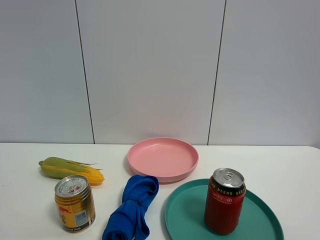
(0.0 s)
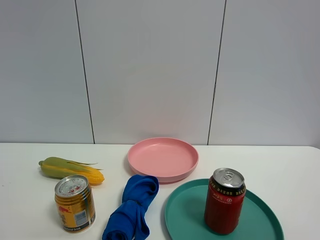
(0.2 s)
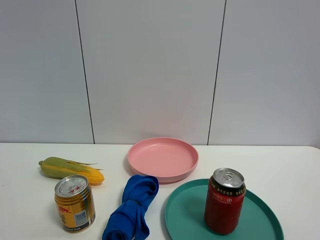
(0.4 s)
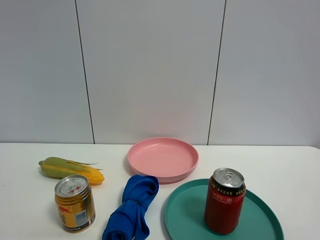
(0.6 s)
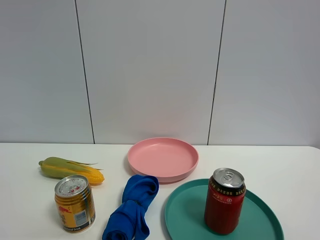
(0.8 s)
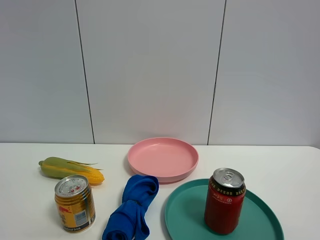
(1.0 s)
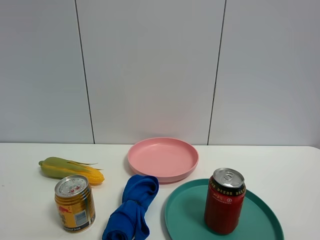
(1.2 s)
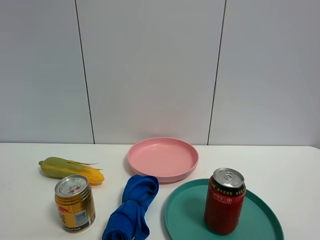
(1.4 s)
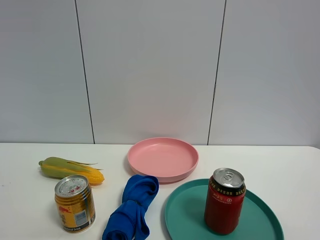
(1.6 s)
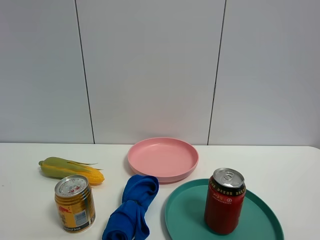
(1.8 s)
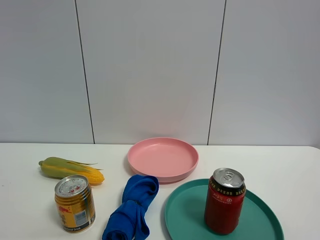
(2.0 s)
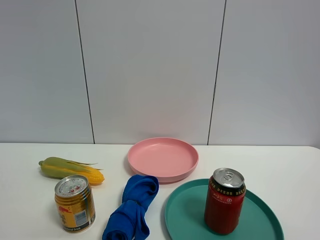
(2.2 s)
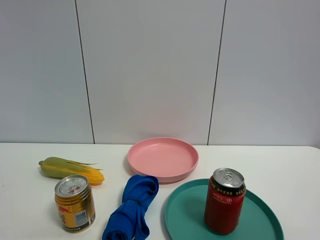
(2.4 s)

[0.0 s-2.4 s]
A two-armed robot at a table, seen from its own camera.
Task of the whole recording: the gripper move the object.
1.2 to 2.4 s: Both grippers stay put.

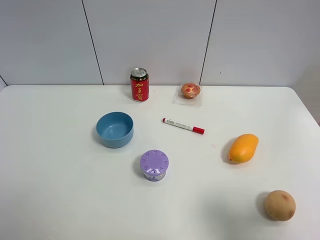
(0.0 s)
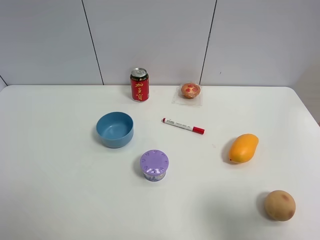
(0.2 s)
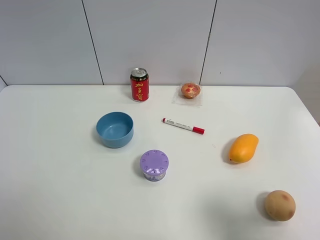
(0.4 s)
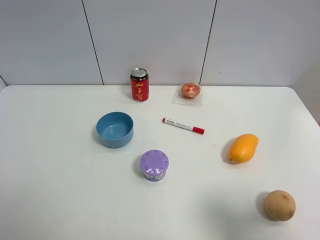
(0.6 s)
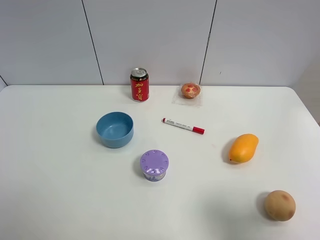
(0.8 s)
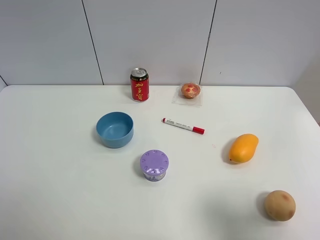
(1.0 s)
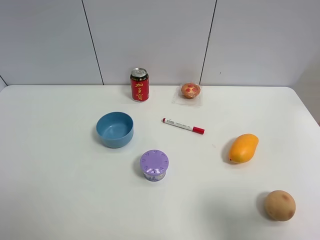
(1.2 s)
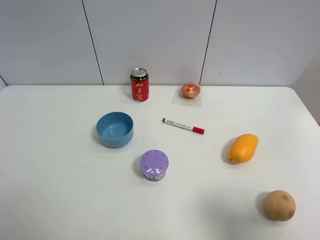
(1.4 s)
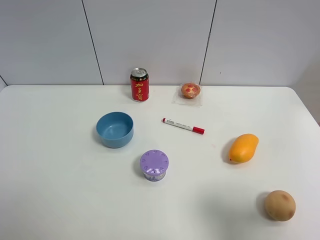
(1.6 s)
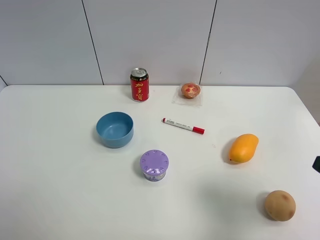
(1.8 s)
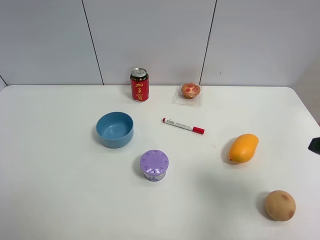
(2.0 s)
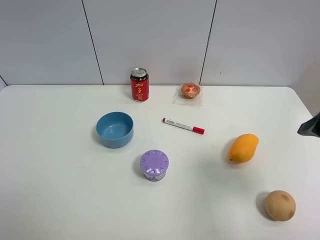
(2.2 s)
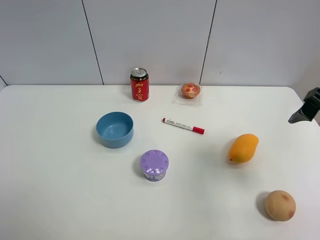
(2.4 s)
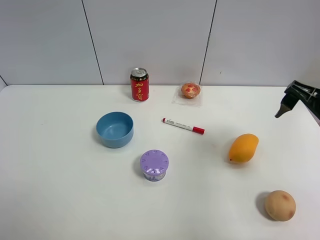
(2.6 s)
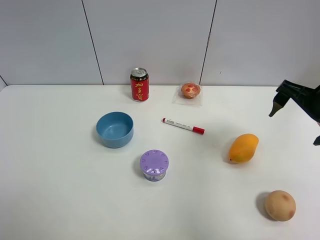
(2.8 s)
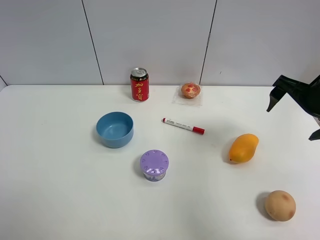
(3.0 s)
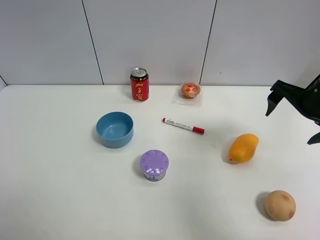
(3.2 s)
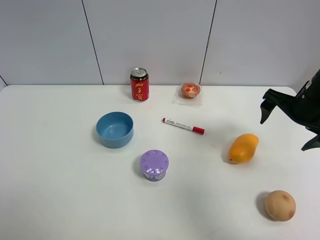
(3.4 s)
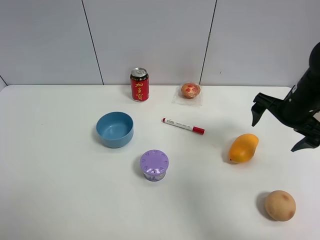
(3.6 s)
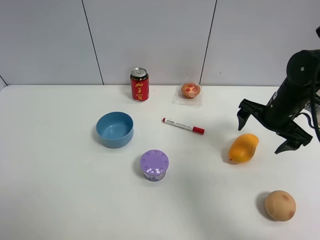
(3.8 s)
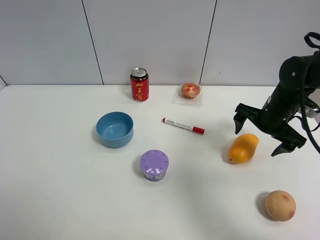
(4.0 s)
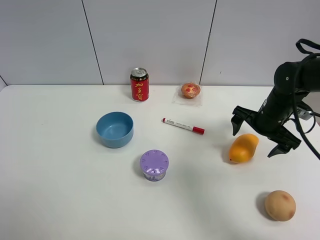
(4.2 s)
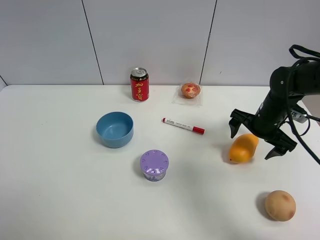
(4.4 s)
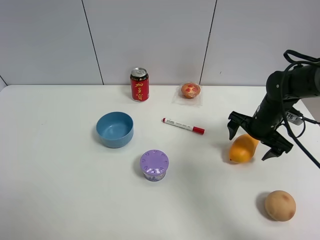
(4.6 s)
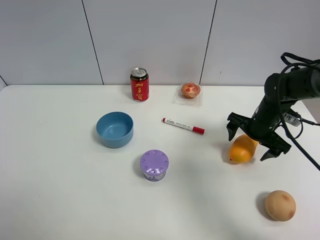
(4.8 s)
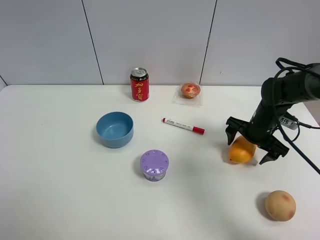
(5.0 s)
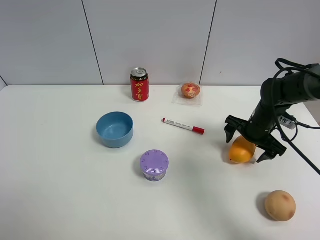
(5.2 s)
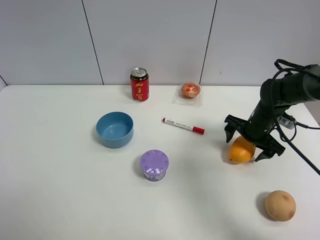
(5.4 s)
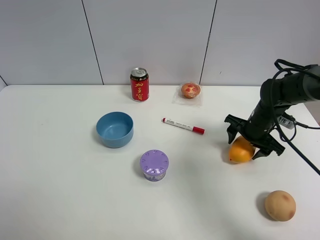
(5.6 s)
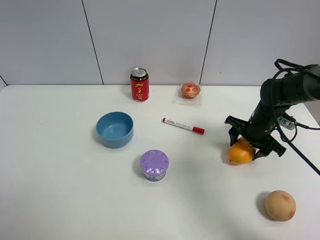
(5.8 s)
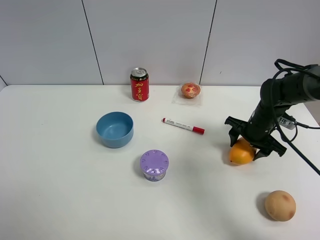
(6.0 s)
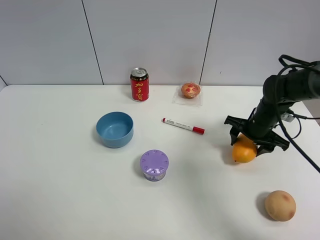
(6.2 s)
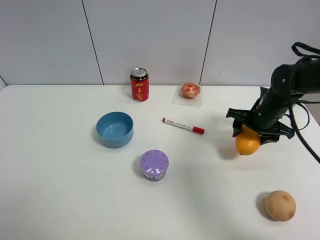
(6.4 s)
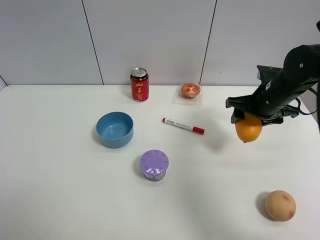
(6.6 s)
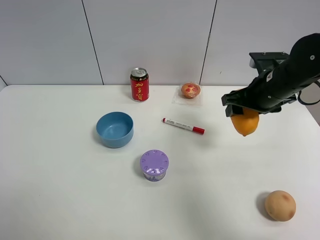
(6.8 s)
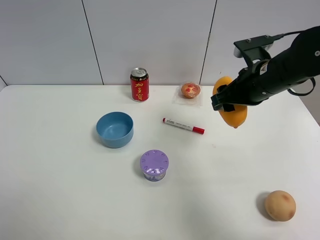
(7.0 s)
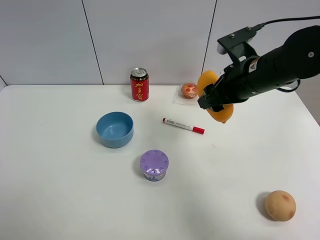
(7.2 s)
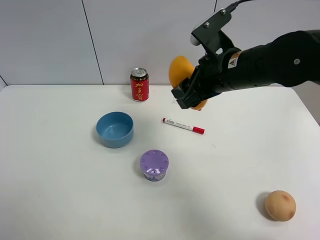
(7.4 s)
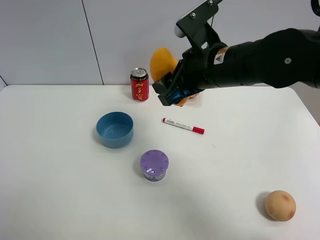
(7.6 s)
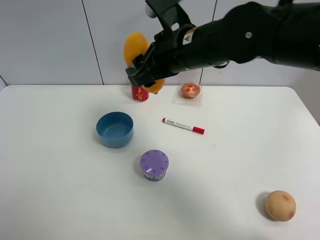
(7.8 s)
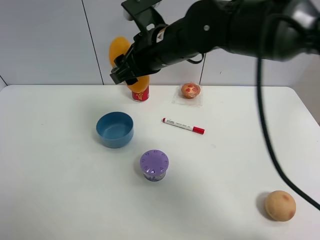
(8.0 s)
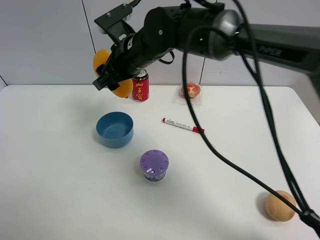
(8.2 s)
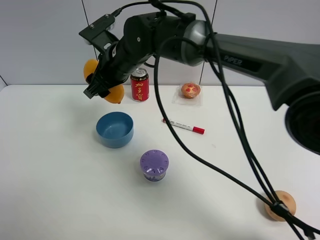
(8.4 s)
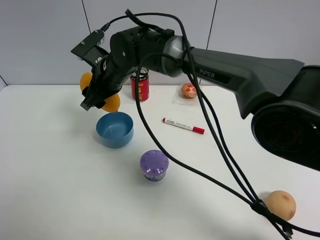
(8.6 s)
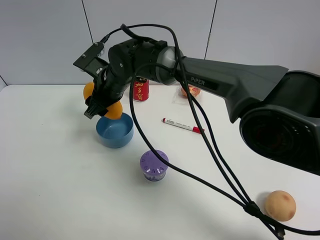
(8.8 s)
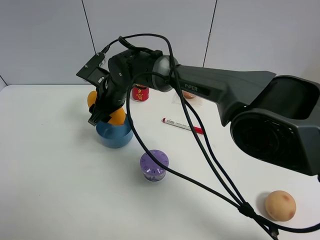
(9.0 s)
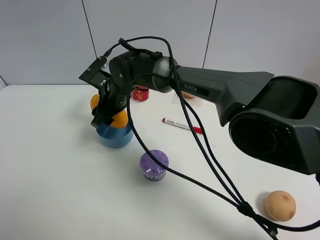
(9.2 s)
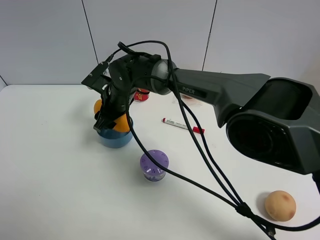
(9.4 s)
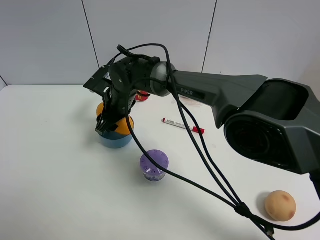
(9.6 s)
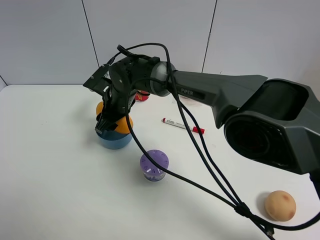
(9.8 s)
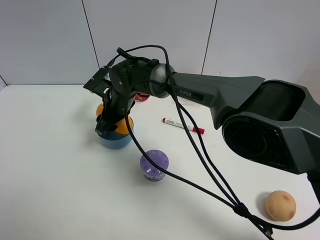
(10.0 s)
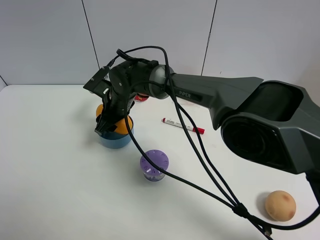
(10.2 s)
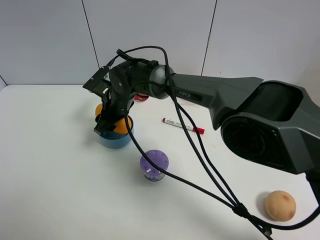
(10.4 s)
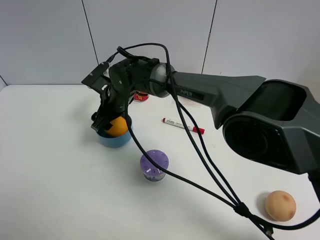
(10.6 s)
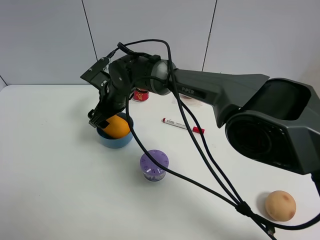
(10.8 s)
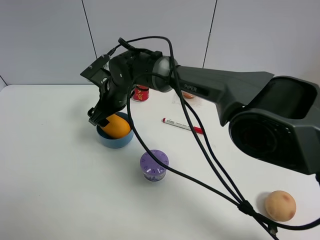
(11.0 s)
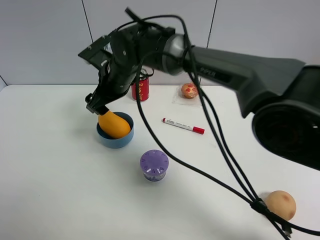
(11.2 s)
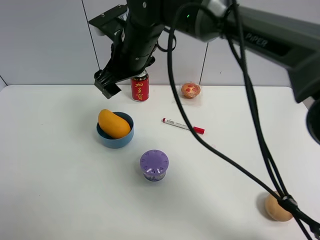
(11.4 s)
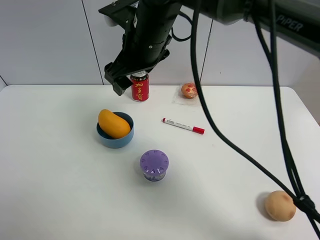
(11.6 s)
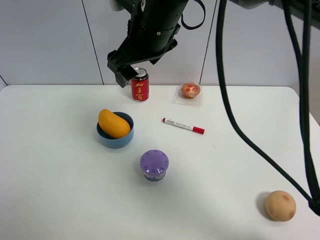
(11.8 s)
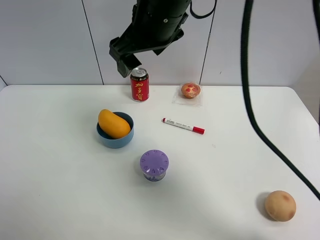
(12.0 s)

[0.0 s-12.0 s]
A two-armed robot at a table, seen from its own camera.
Task of the whole recording: the gripper move the object.
Step, 0.0 to 5.6 s: Grasp the mango with the right gripper.
Step, 5.8 to 10.6 s: Place the mango into the blue bowl with the right gripper.
1.6 to 3.0 s: The right gripper is displaced forward by some 25 cm.
3.0 to 4.4 s: The right gripper shifts roughly 15 cm downward and forward.
4.4 to 6.0 s: The right gripper closes its fingers.
6.0 to 7.6 s: The right gripper moves upward and to the left, approximately 25 cm.
7.6 to 9.0 s: The right gripper goes some 25 cm to the left, downward and forward.
9.0 to 10.4 s: The grippers stay close to where they were, moving slightly.
10.4 to 12.0 s: The right gripper shifts approximately 25 cm upward and to the right, and opens.

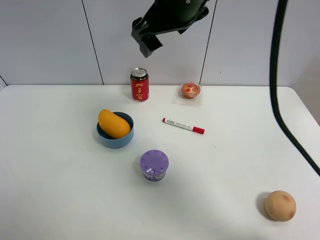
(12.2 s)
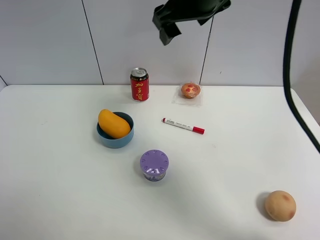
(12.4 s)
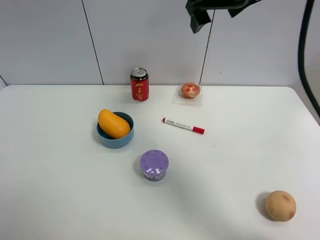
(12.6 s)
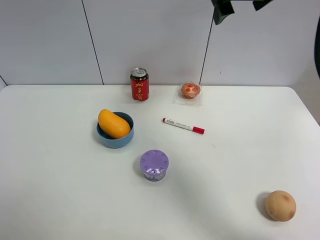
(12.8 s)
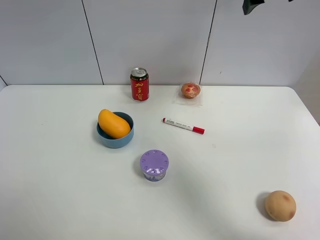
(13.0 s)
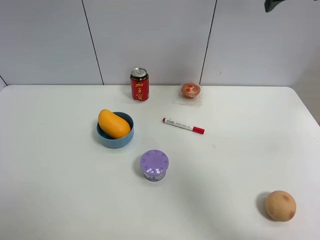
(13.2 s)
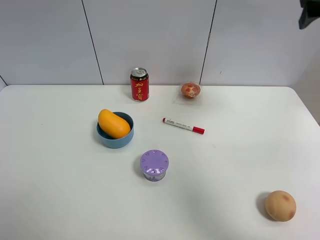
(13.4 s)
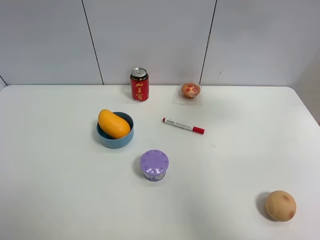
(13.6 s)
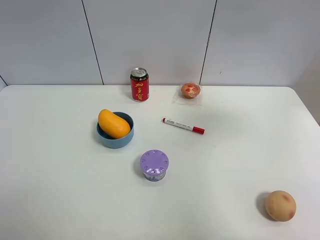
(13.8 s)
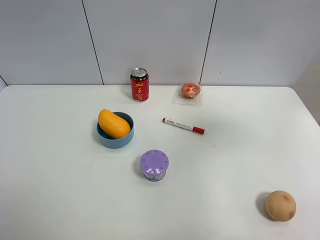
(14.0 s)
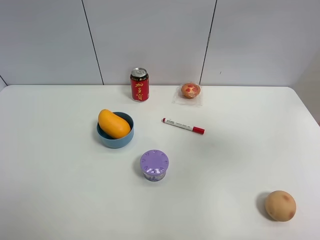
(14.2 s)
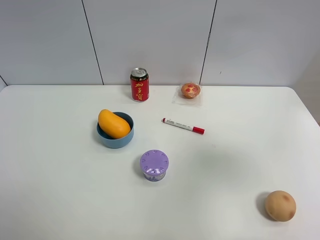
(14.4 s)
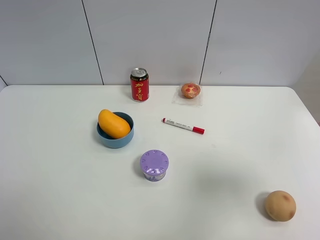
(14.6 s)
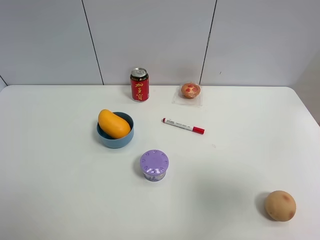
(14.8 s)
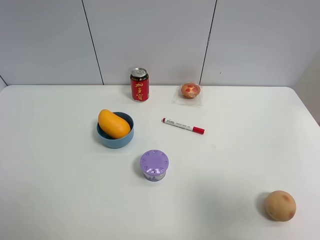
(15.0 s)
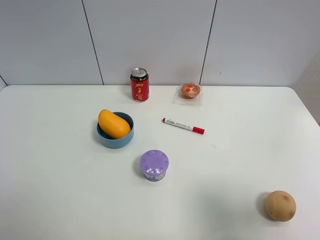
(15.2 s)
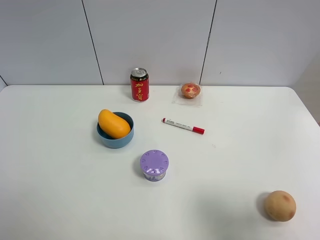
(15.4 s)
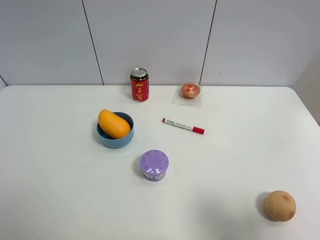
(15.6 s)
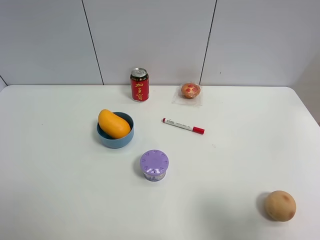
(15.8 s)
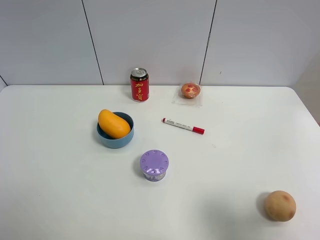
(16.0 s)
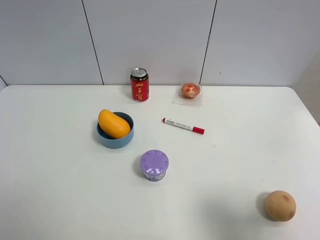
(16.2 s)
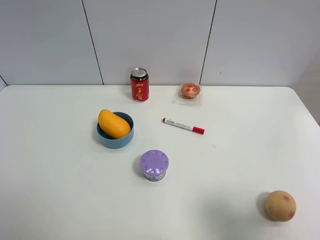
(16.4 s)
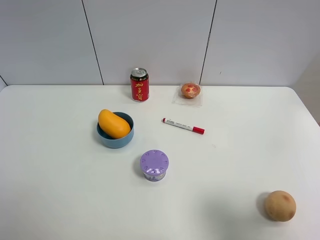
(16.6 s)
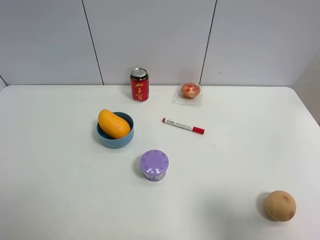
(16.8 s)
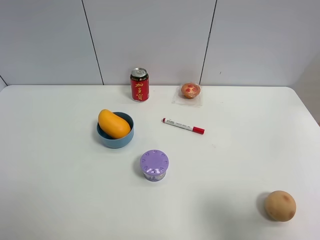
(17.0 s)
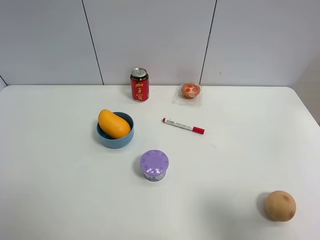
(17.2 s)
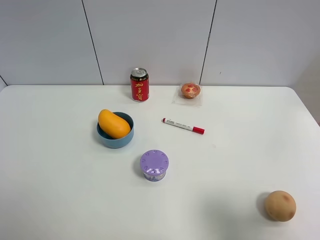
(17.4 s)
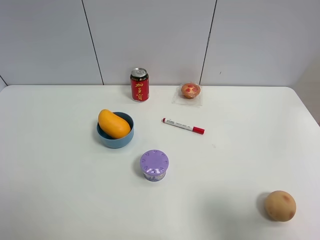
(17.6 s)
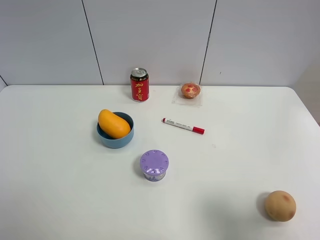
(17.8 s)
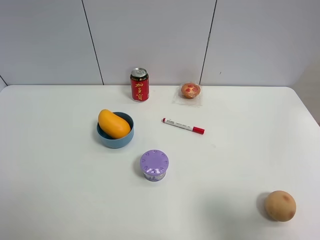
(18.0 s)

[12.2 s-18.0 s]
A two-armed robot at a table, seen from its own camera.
Task of the whole recording: the gripper move the object.
12.2 to 13.6 s: The right gripper is displaced to the right by roughly 30 cm.
13.6 to 15.0 s: The right gripper travels backward by approximately 30 cm.
15.0 to 16.6 s: The right gripper travels downward by approximately 5 cm.
16.6 to 18.0 s: Both grippers stay put.

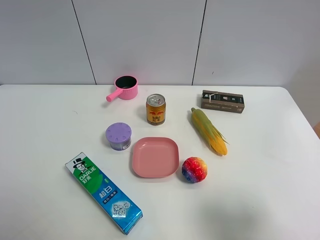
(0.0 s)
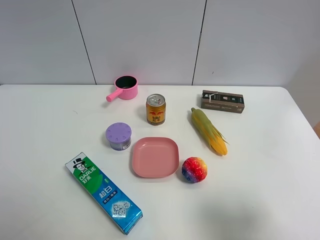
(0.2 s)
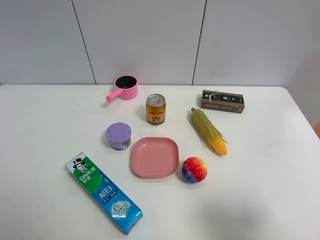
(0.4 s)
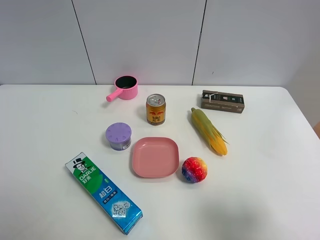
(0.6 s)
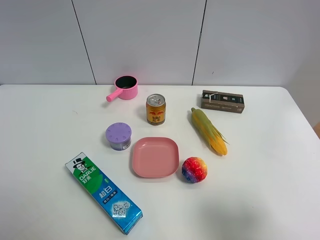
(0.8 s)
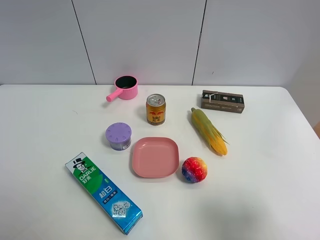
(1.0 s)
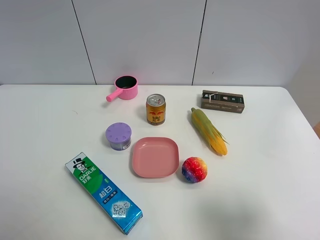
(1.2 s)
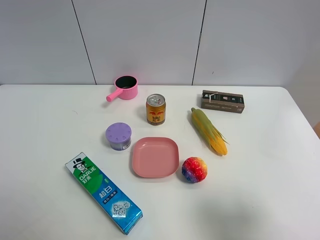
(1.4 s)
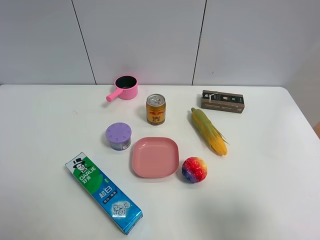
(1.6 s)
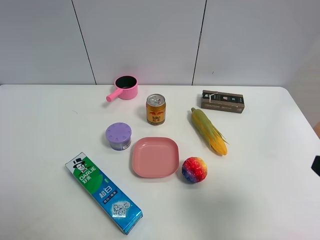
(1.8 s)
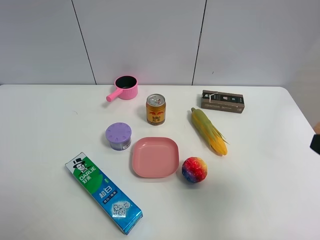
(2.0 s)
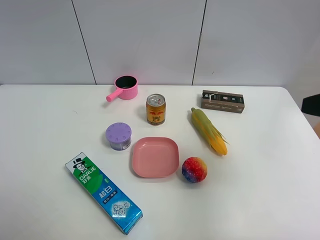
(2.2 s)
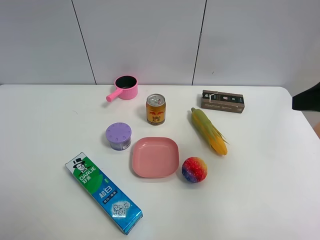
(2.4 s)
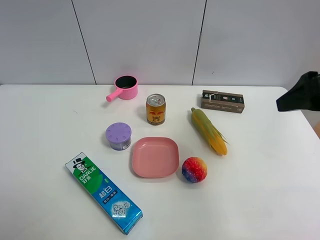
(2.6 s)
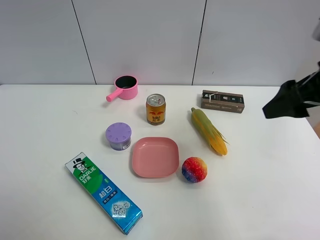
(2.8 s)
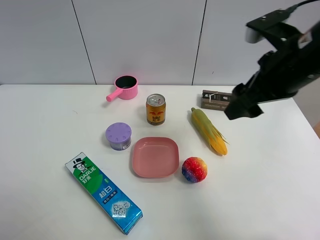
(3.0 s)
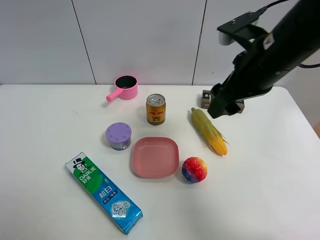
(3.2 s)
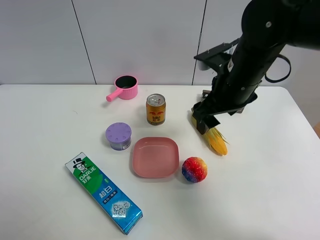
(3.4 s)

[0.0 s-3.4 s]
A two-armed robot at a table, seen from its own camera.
Task of the whole recording: the gripper move the object.
1.6 to 3.4 s: The right gripper travels forward and to the left by about 30 cm.
